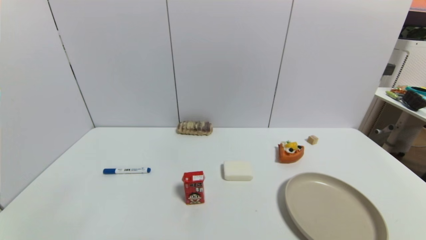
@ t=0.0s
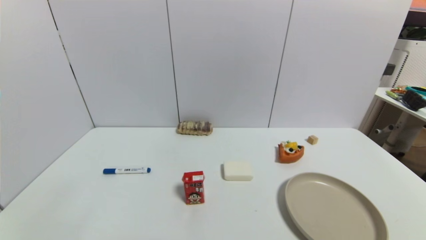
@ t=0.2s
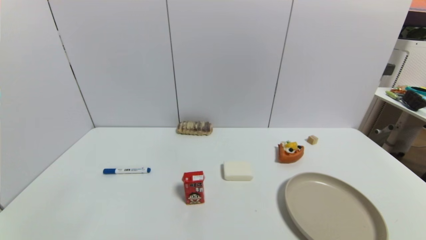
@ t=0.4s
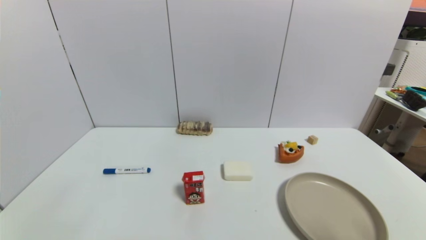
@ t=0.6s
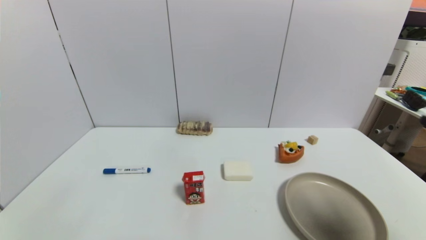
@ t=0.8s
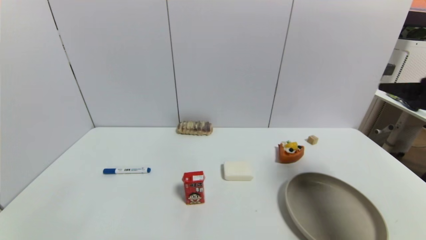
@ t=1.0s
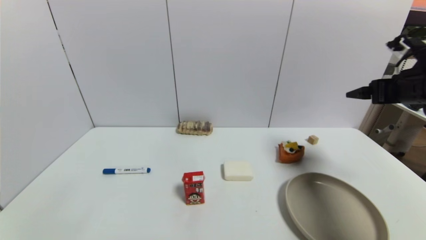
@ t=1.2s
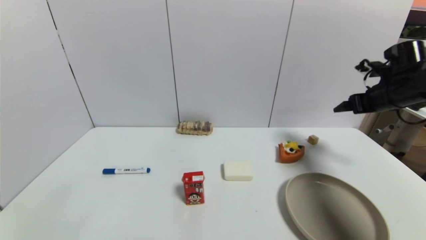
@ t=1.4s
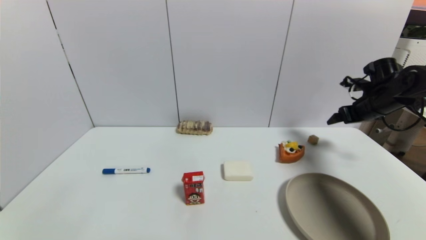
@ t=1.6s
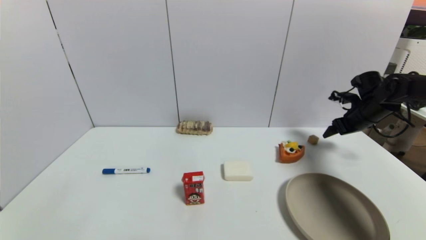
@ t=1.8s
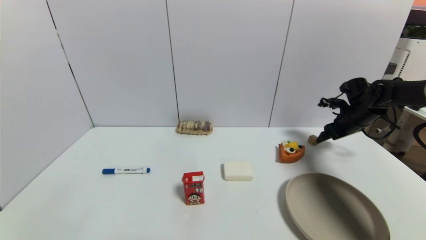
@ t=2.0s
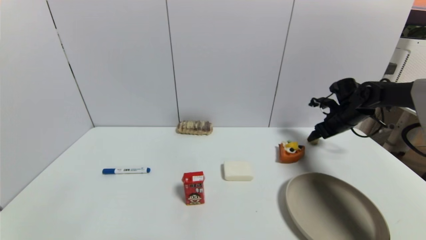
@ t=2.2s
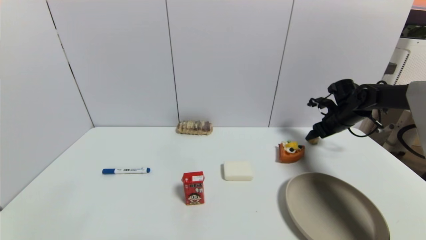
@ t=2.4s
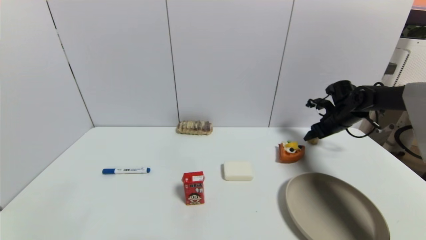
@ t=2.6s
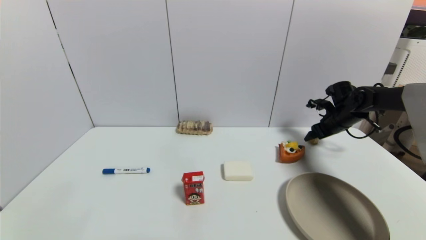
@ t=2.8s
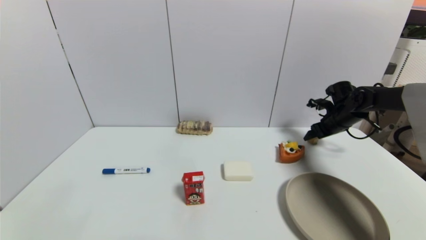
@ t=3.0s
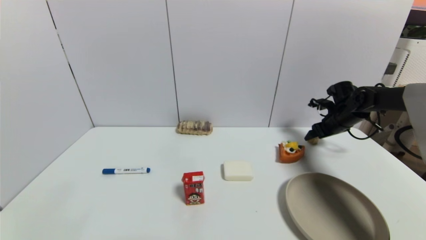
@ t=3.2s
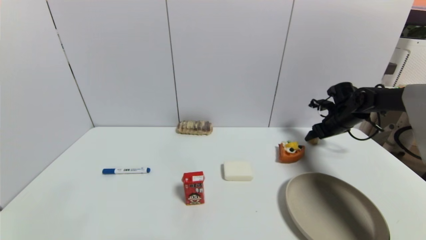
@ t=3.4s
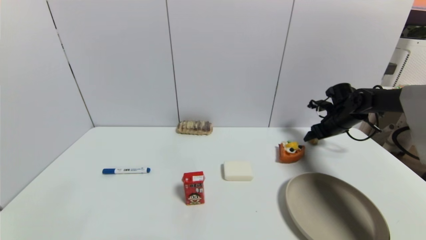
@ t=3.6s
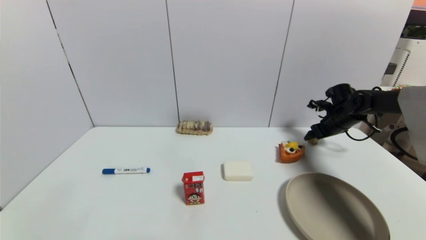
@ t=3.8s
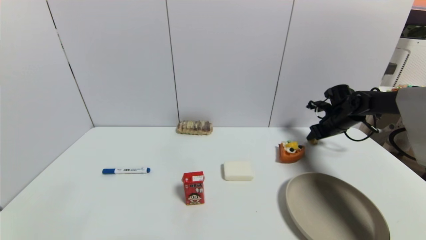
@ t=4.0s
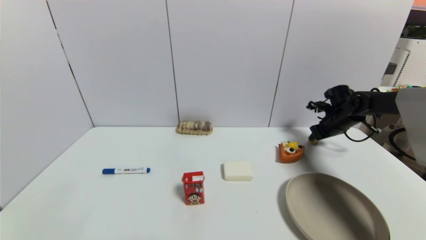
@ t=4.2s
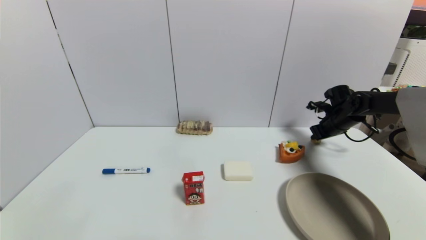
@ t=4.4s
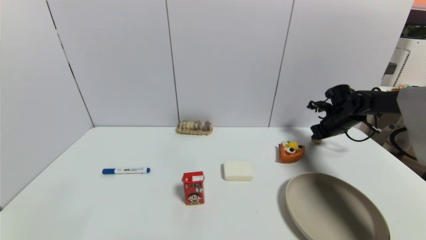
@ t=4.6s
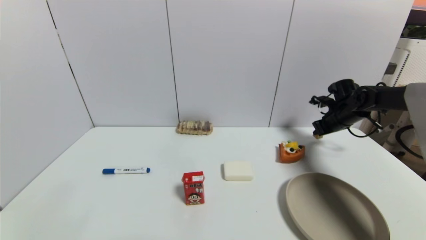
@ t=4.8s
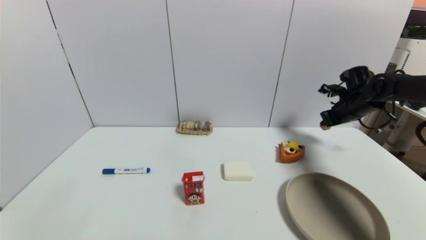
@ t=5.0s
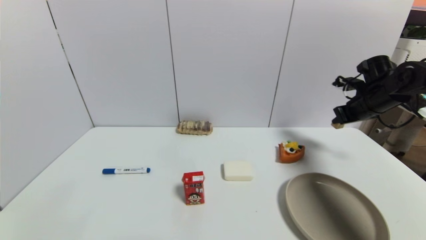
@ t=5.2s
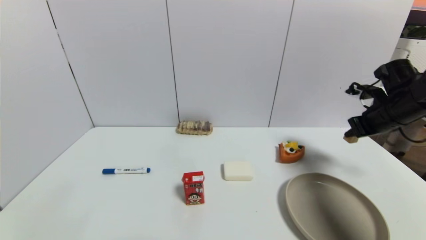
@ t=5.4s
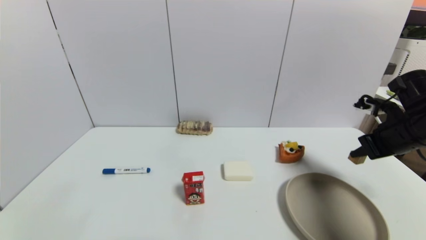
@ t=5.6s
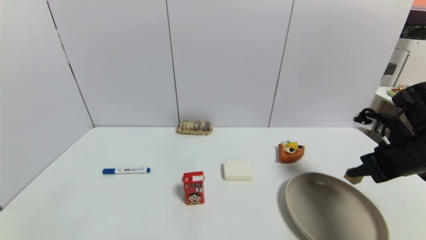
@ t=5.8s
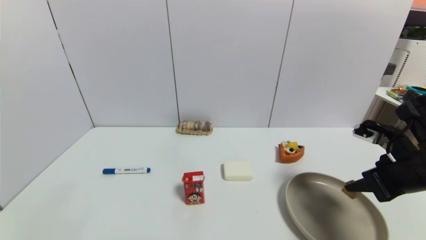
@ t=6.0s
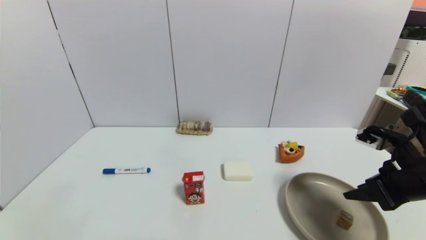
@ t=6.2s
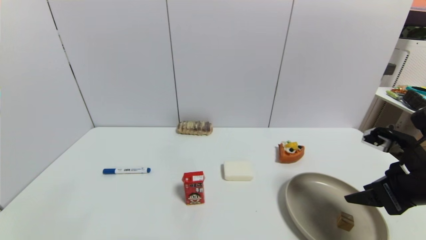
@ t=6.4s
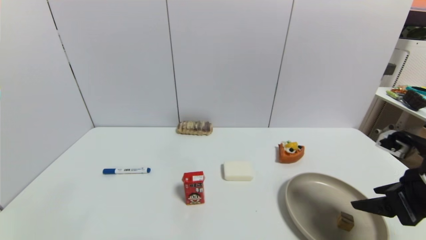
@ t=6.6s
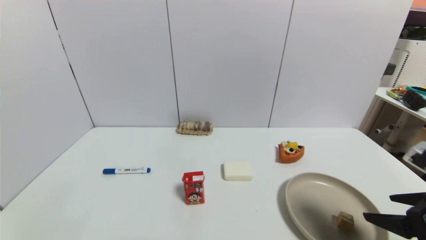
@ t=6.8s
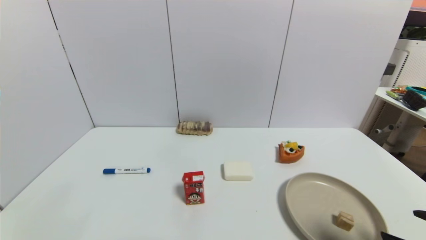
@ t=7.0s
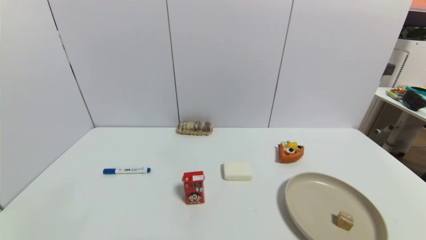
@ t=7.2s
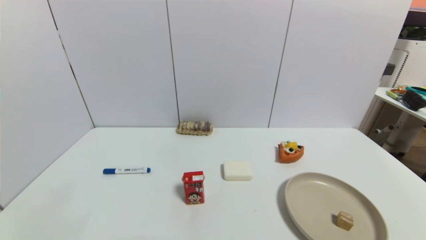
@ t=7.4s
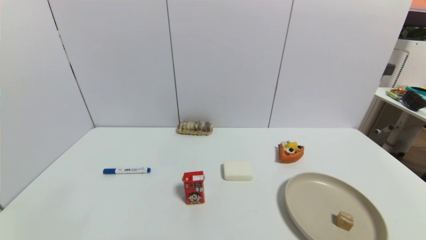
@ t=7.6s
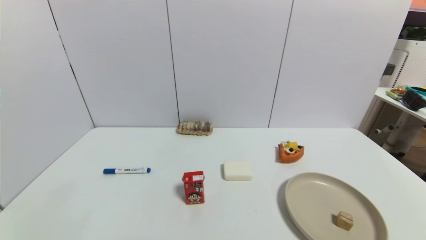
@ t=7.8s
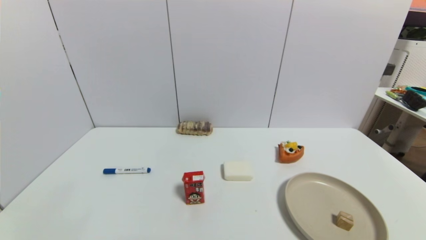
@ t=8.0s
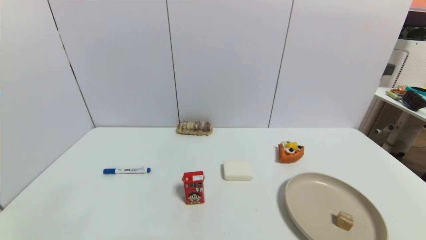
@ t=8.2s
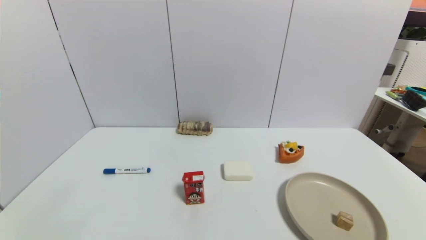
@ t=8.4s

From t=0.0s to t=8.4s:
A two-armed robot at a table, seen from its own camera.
Task of the whole recording: use a gripper to pick the target object and place on the brown plate.
Step, from t=0.0s to t=4.6s: Grasp the square wooden block with the right gripper.
Step, from t=4.8s to t=6.6s: Place the square wooden block on the brown plate with the right gripper.
From t=0.0s to t=1.4s: The right gripper travels forward by some 40 cm.
From t=1.4s to t=2.8s: The right gripper heads downward and forward, covering approximately 15 cm.
From t=2.8s to t=4.2s: The right gripper closes up.
From t=4.2s to t=5.6s: The right gripper moves backward and upward, about 20 cm.
From t=5.6s to t=7.0s: The right gripper travels backward by approximately 20 cm, and opens its fingers.
From t=7.0s to t=8.4s: The right gripper shifts some 10 cm downward and backward.
